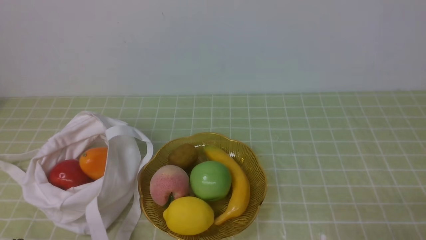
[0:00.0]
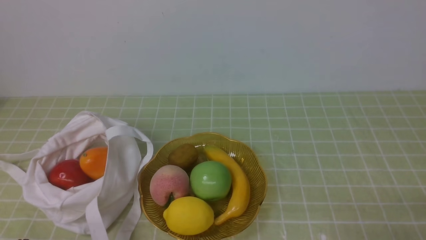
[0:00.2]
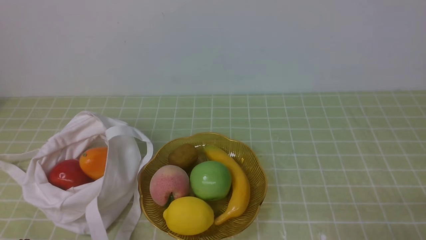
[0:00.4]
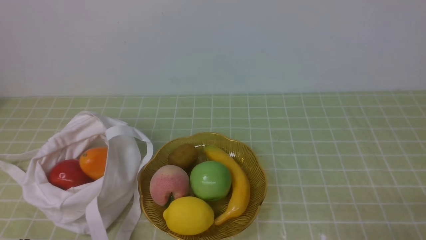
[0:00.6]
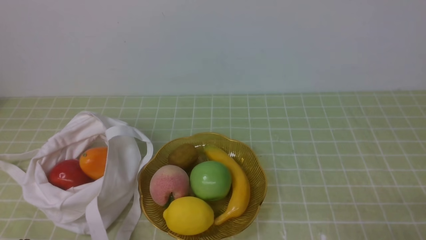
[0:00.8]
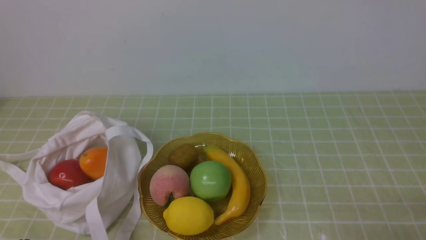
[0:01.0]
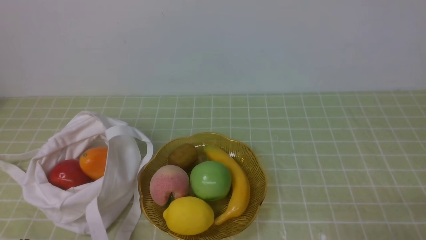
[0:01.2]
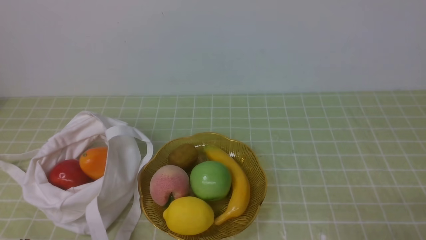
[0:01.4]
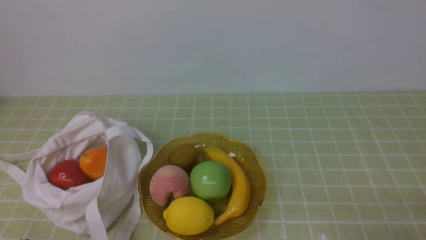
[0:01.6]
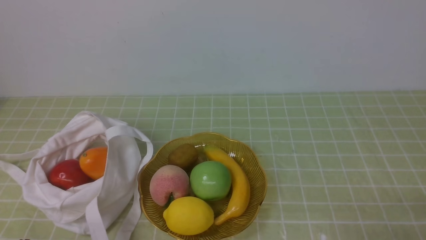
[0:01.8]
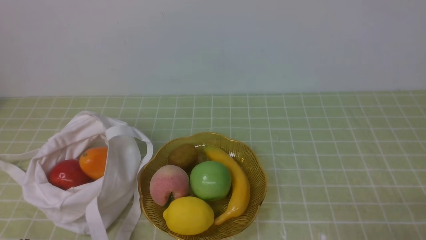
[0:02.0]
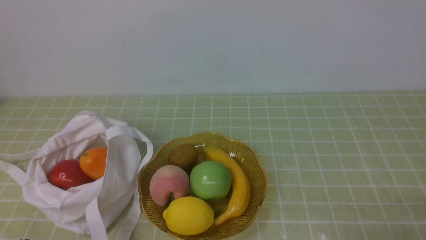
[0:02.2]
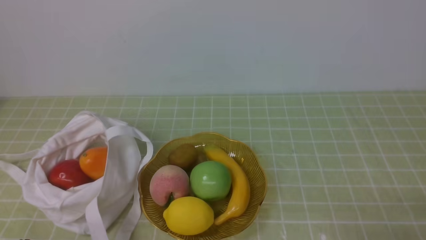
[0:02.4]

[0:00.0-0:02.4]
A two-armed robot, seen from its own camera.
0:00.0 to 0:02.4: Both grippers stay put.
